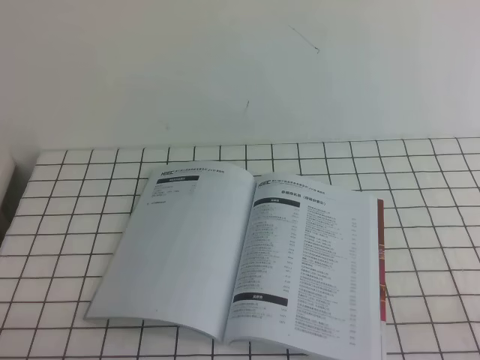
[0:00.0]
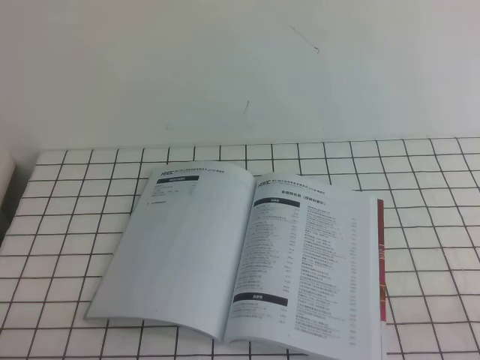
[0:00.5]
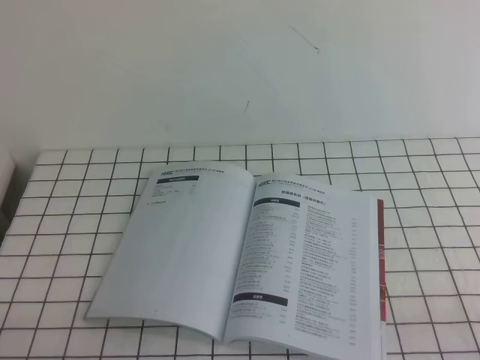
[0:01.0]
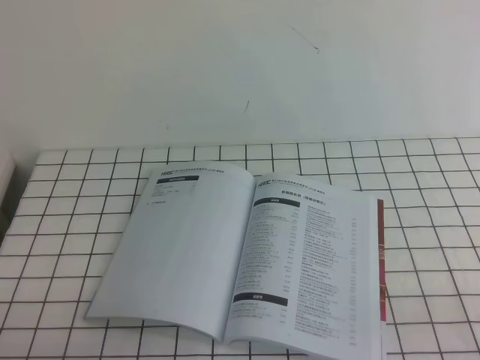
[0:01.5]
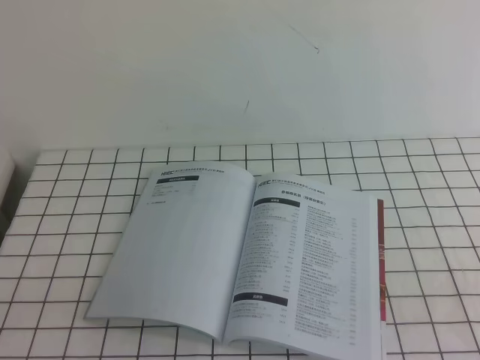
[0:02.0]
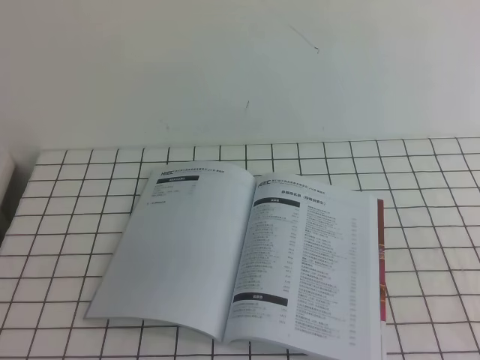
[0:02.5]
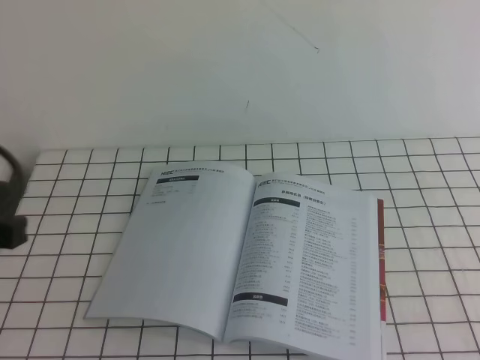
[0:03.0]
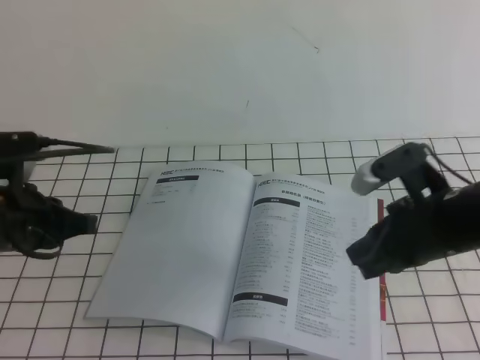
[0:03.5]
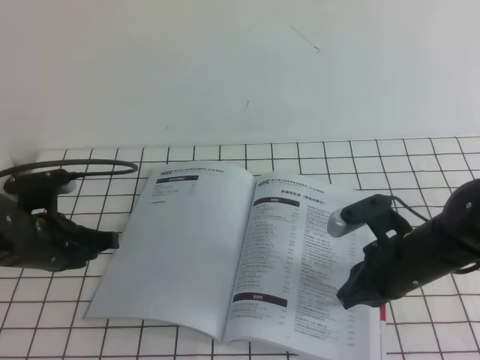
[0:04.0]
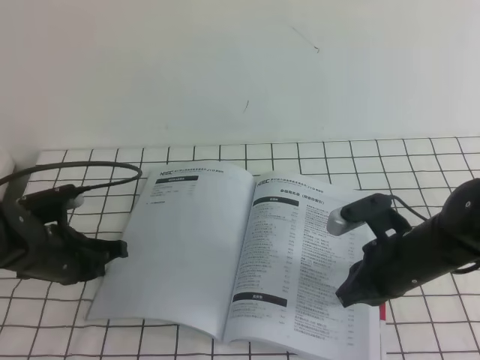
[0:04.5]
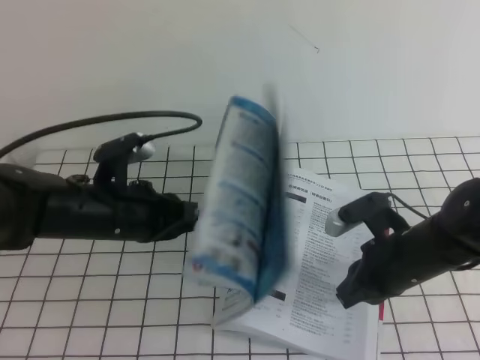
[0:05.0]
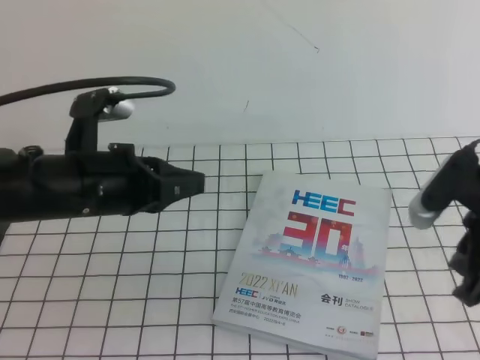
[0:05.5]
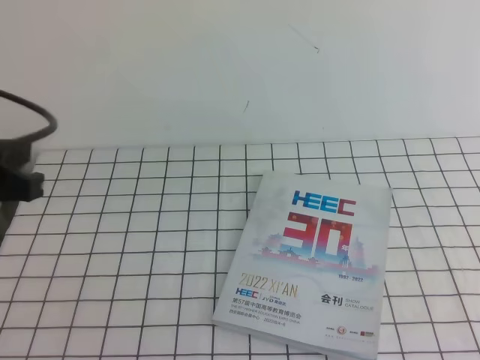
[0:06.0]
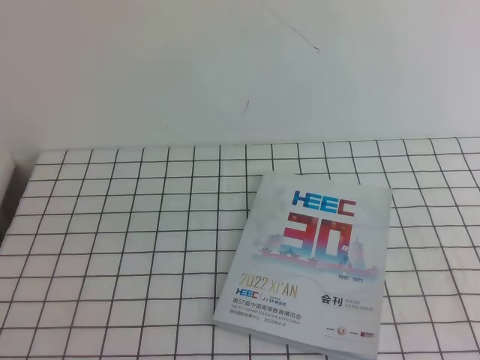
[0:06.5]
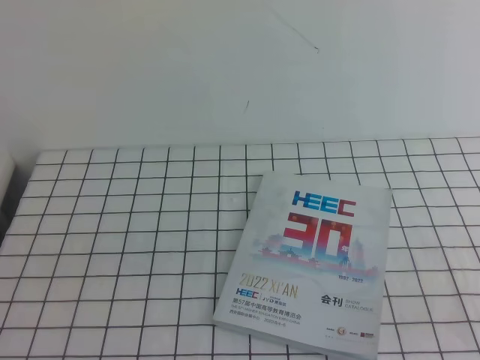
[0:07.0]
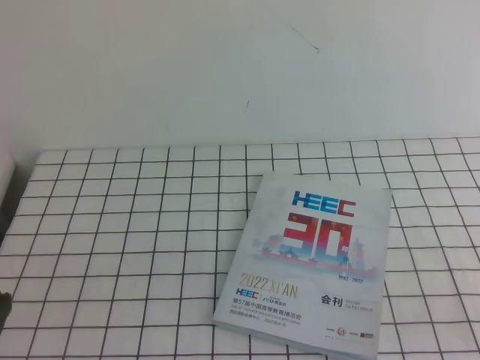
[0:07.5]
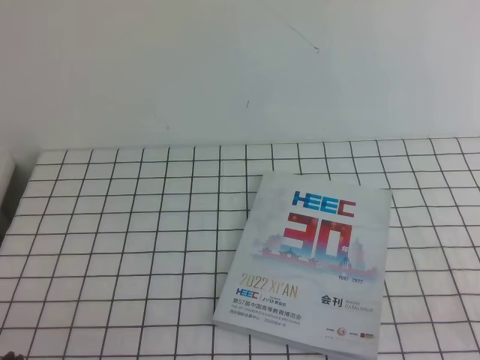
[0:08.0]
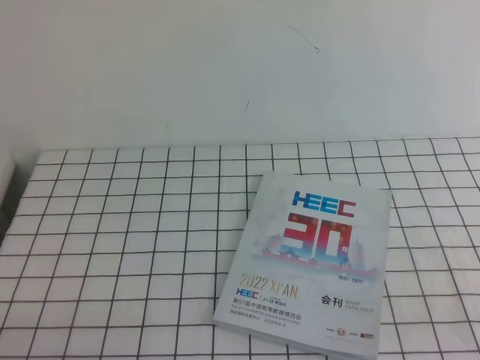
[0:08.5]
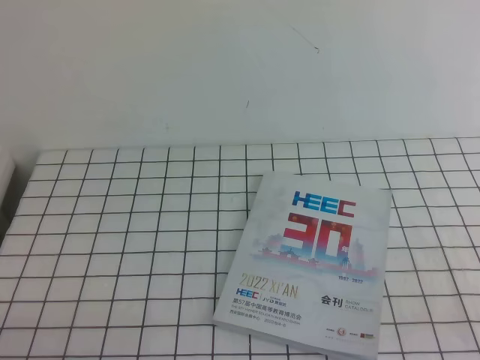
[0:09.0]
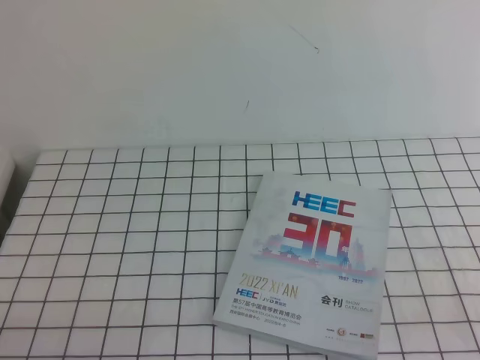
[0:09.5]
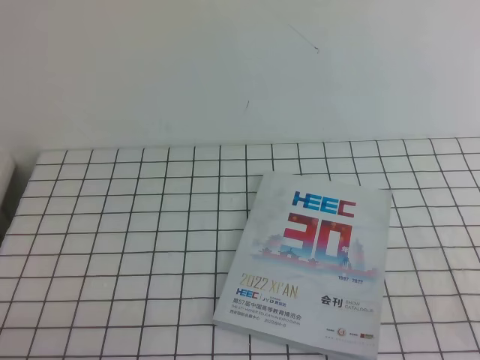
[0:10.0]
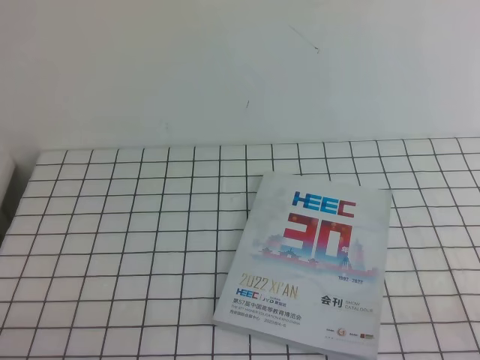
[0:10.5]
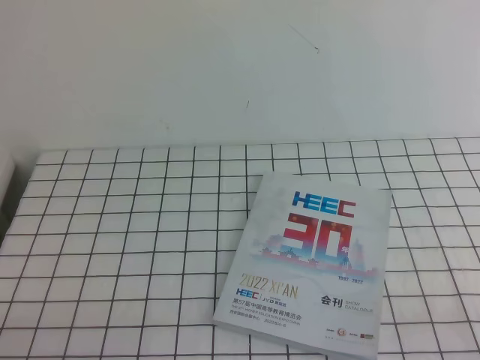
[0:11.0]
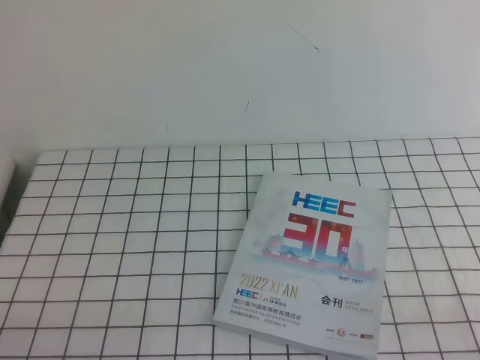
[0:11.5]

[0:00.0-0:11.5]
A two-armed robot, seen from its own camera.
Task of the whole recording: on the white tablecloth, hold the book with one hand and close it with the other.
Step, 0:00.0 to 0:11.5: Close the open book.
0:02.0 to 0:04.0: The right gripper heads forward, to the left and downward, covering roughly 30 cm, while the left gripper shifts roughly 30 cm forward.
0:04.0 to 0:06.0: The right gripper shifts roughly 25 cm upward, to the right and backward; the left gripper travels upward and backward by roughly 20 cm.
0:06.0 to 0:07.5: The left gripper is displaced backward by roughly 15 cm. The right gripper goes roughly 15 cm backward and downward.
